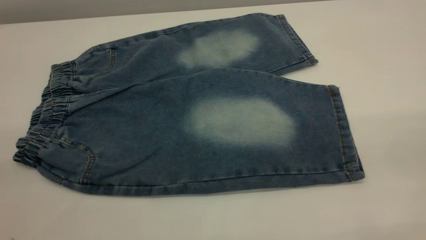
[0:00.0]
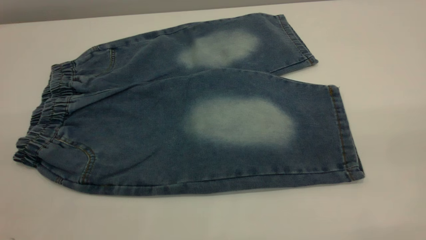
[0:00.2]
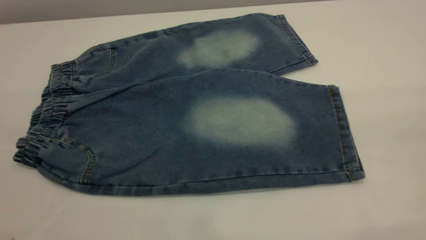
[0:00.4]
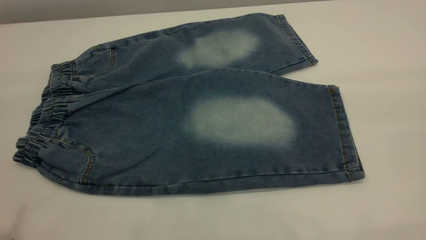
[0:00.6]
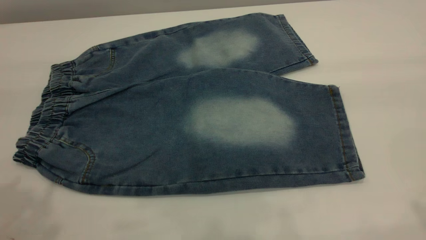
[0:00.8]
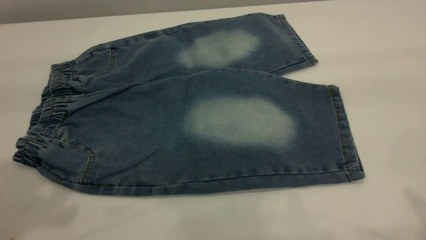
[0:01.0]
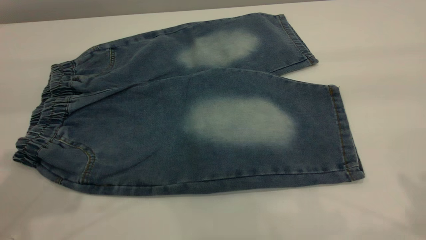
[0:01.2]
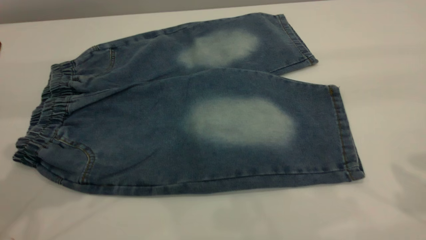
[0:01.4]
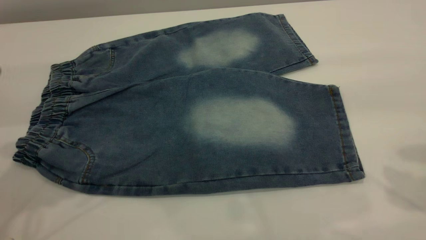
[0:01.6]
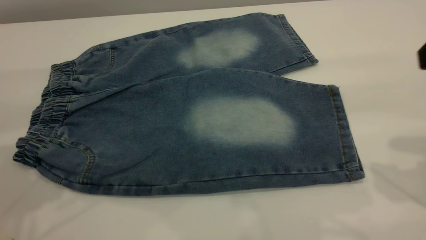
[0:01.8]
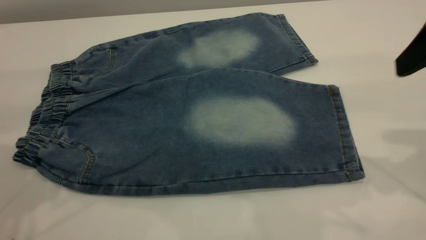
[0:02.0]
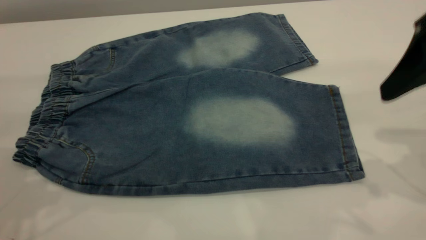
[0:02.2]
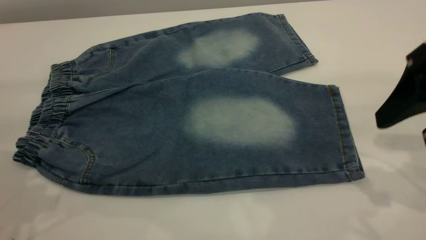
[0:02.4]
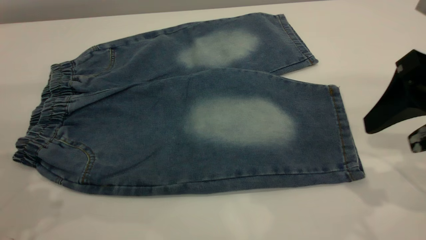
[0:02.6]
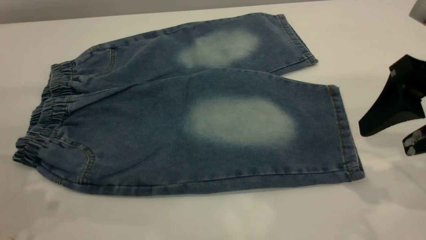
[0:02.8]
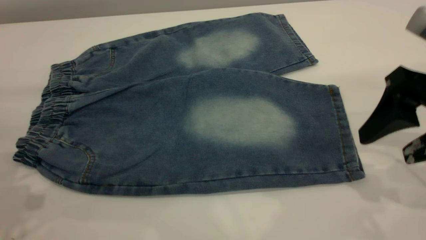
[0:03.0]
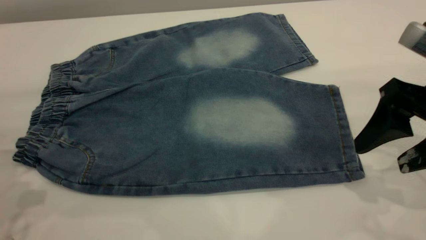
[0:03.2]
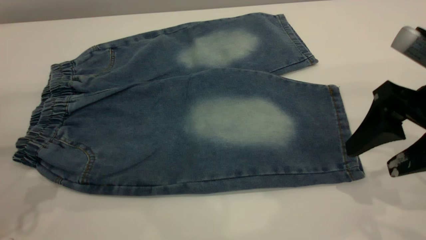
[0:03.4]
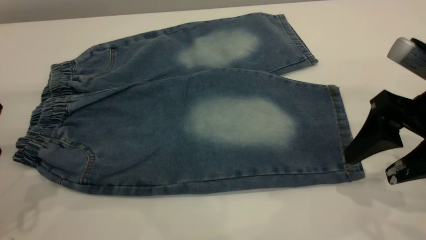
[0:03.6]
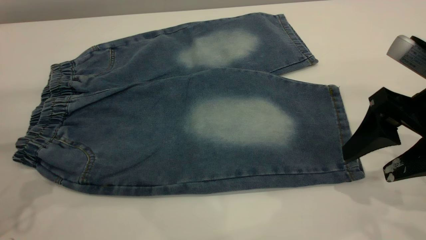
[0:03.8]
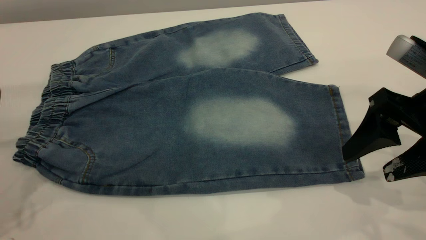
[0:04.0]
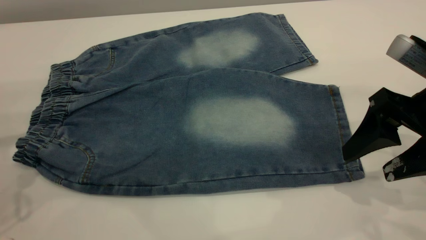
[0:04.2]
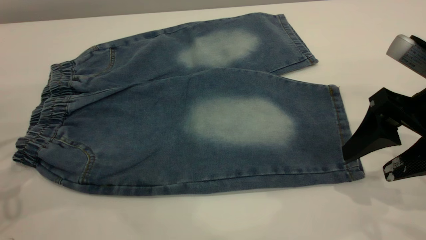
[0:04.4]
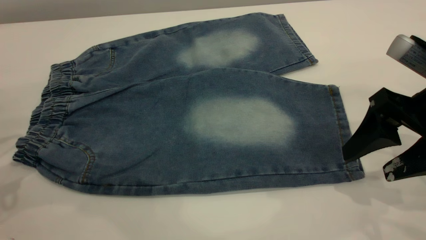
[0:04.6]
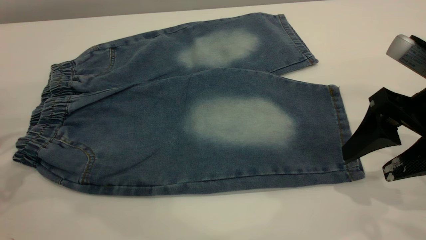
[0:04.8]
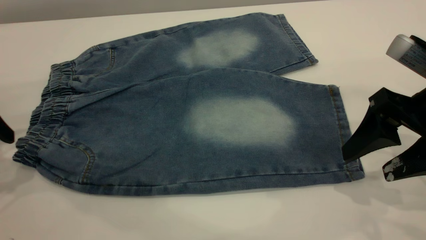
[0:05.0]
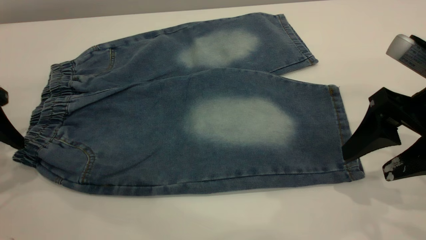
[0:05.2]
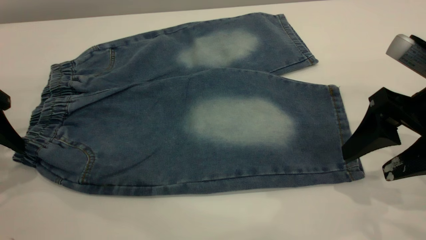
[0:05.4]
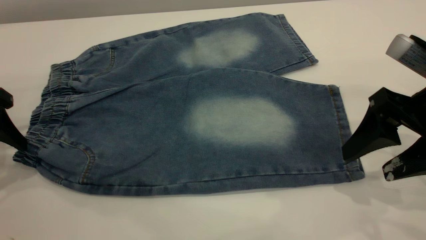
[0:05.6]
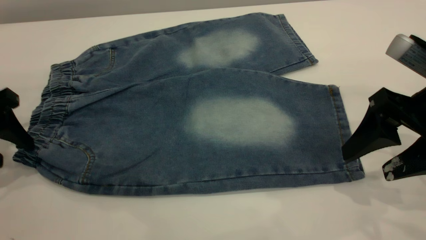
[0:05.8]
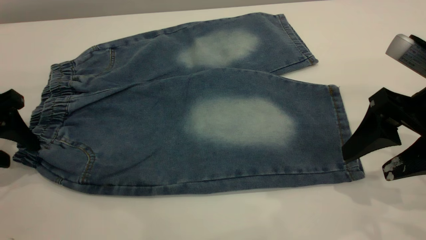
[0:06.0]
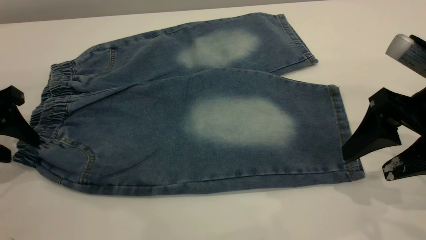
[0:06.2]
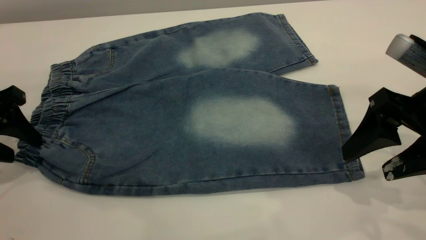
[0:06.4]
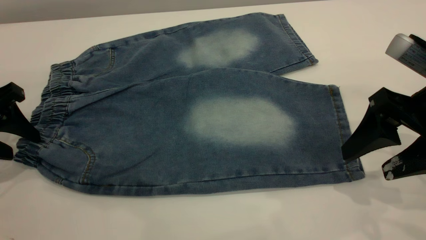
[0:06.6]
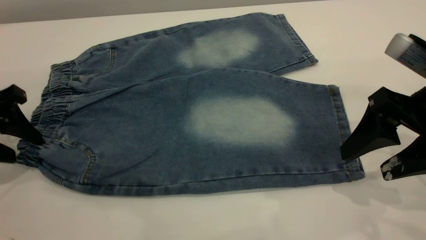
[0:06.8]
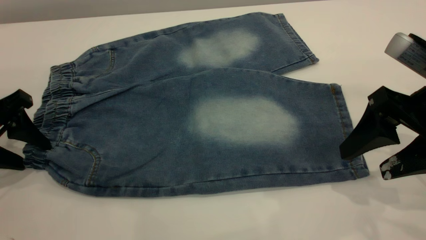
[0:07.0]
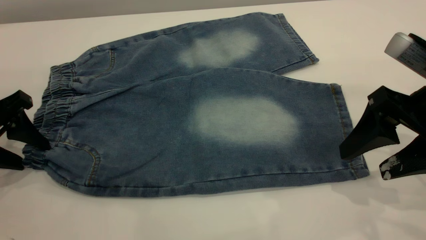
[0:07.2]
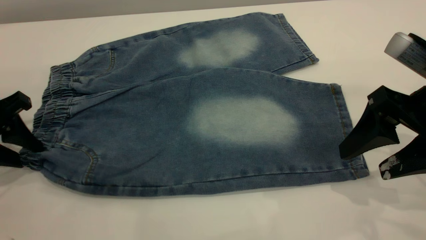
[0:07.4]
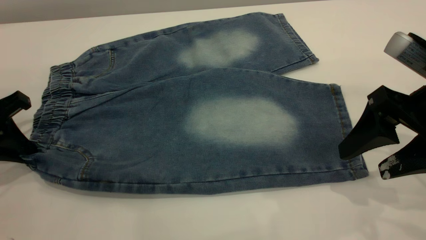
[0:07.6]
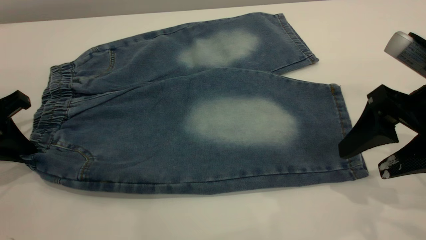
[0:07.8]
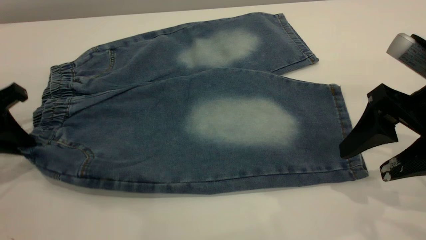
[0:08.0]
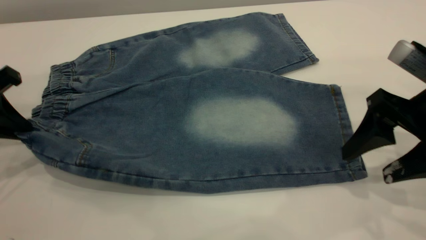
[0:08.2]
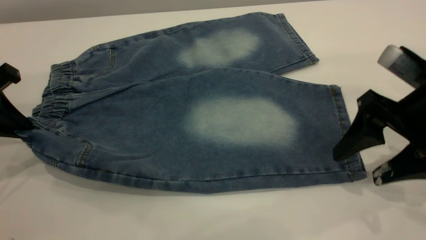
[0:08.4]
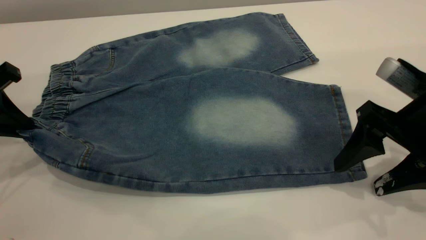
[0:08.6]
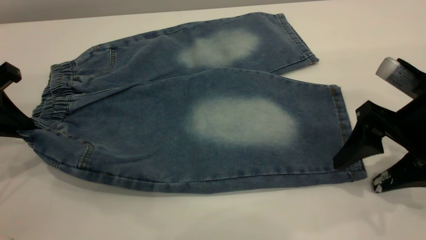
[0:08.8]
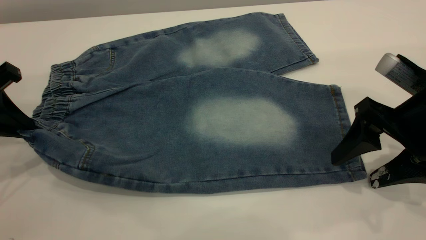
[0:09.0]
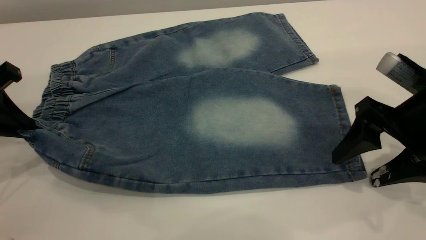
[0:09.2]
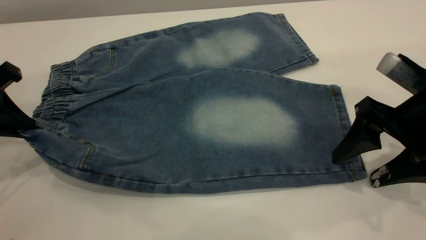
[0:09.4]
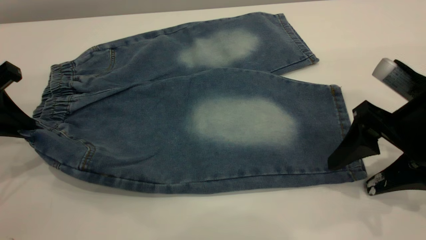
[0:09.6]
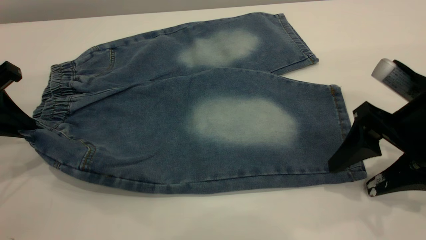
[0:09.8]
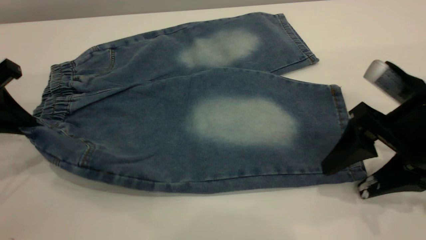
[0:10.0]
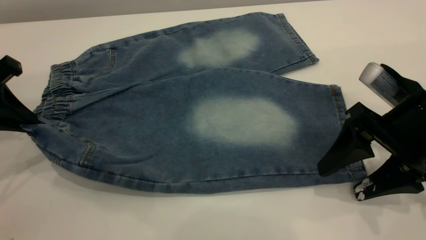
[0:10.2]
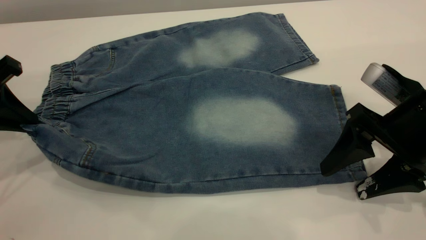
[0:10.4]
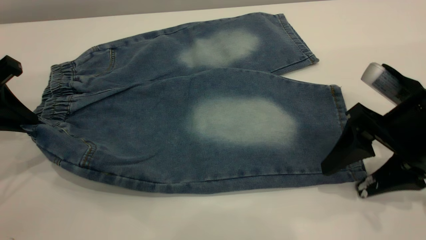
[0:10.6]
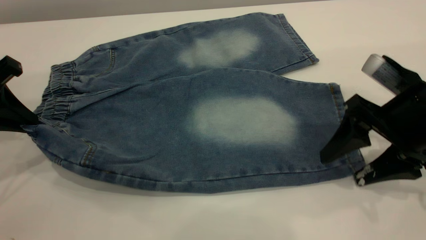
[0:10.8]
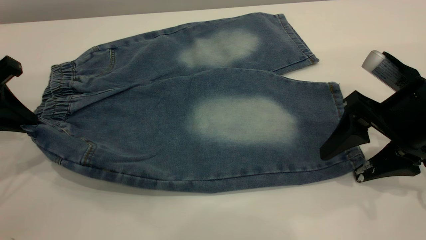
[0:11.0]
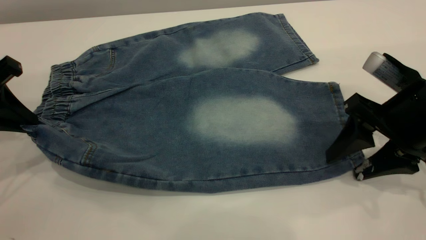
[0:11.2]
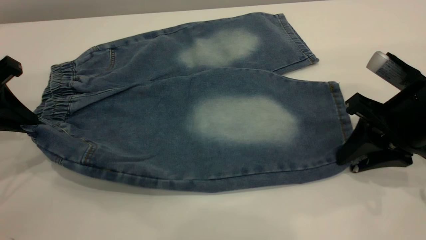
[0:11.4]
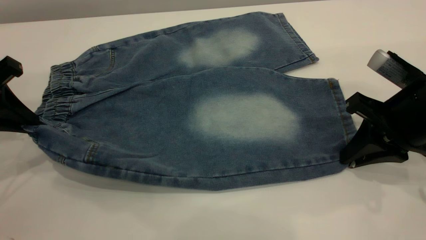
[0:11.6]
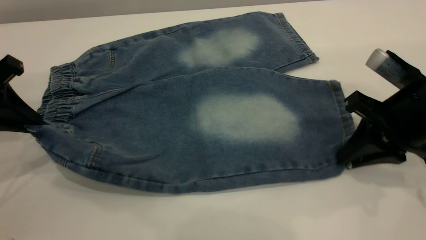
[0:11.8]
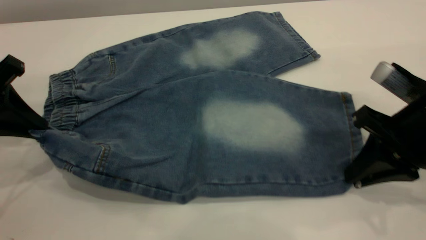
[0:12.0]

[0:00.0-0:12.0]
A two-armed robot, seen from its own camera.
0:01.6 to 0:03.0: The left gripper travels downward by about 5 cm, while the right gripper goes approximately 10 cm downward.
0:04.4 to 0:06.0: The left gripper shifts about 5 cm downward.
0:06.0 to 0:07.6: The left gripper closes up.
0:07.6 to 0:10.4: The grippers move only a little.
0:10.4 to 0:12.0: The right gripper closes up.

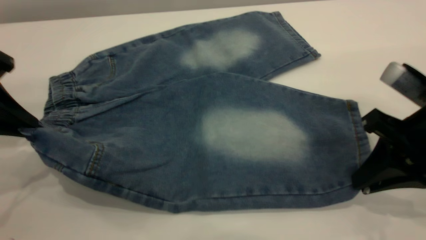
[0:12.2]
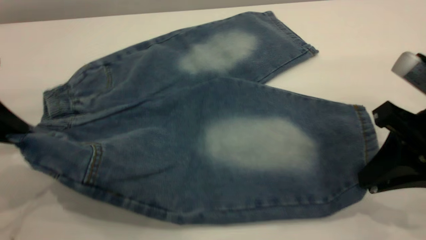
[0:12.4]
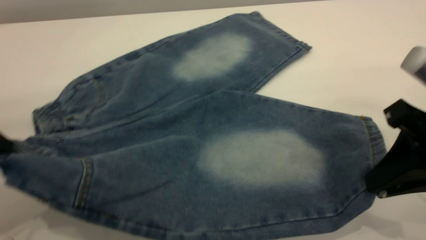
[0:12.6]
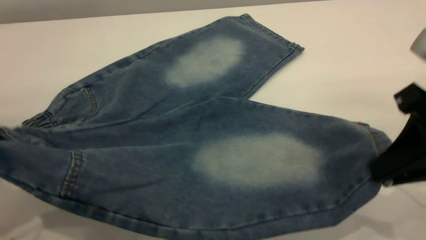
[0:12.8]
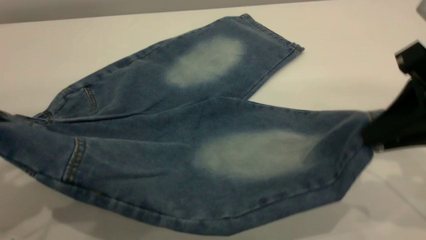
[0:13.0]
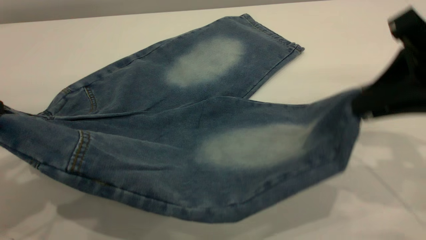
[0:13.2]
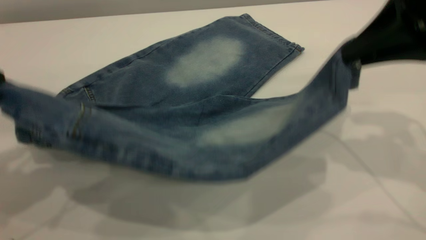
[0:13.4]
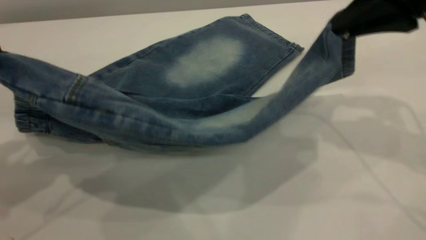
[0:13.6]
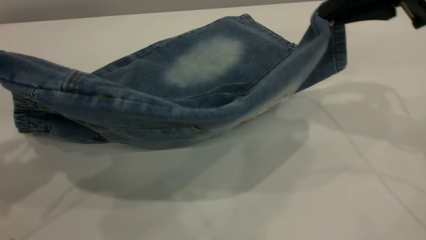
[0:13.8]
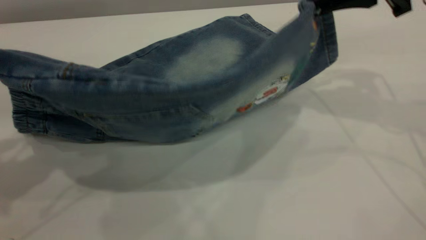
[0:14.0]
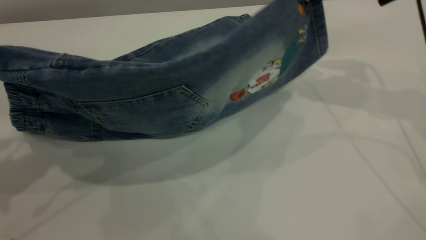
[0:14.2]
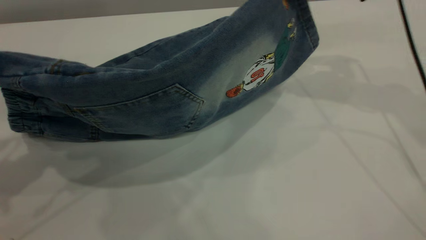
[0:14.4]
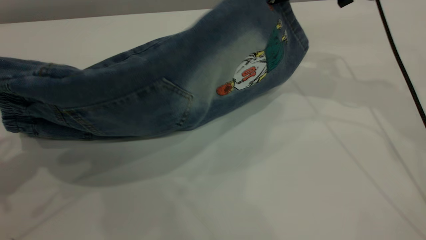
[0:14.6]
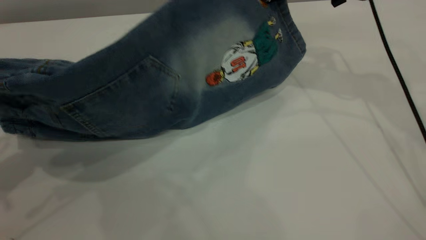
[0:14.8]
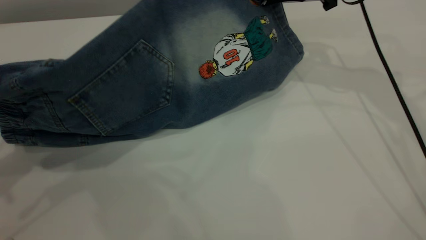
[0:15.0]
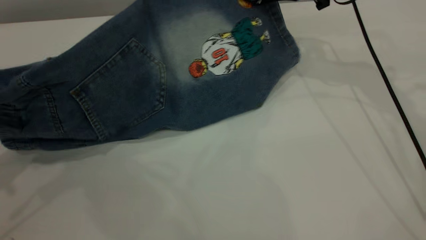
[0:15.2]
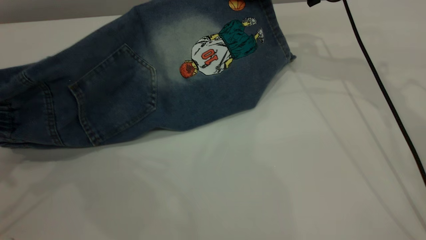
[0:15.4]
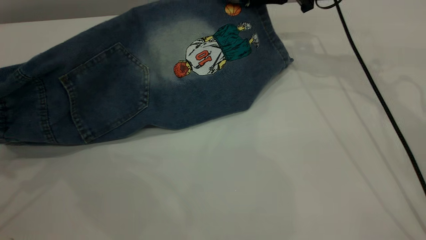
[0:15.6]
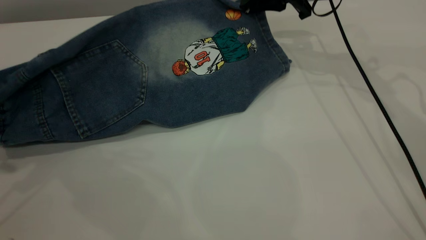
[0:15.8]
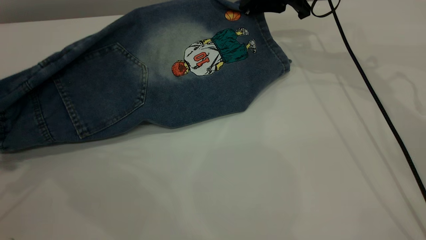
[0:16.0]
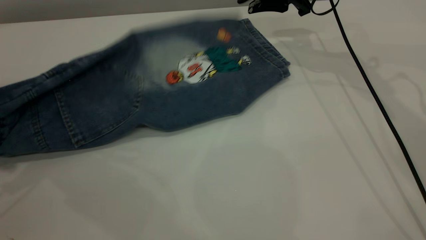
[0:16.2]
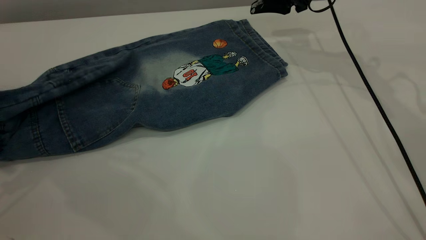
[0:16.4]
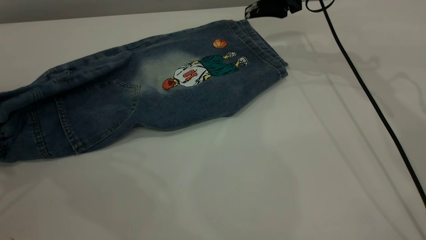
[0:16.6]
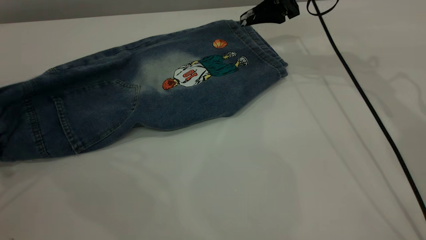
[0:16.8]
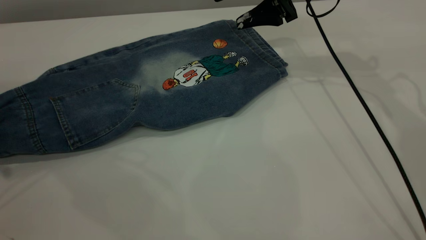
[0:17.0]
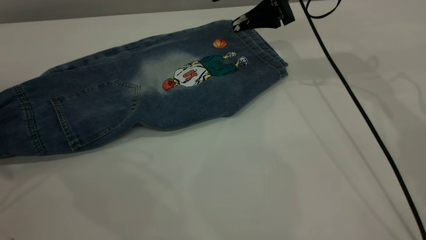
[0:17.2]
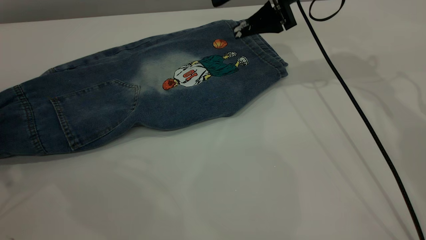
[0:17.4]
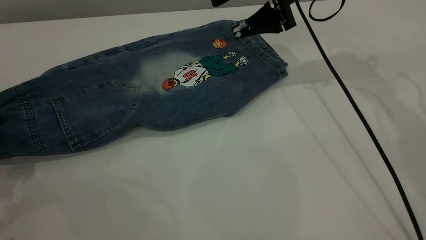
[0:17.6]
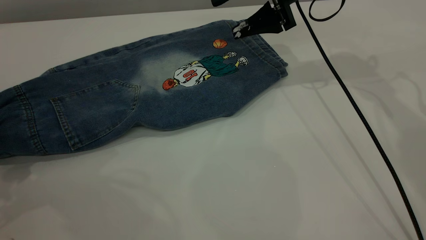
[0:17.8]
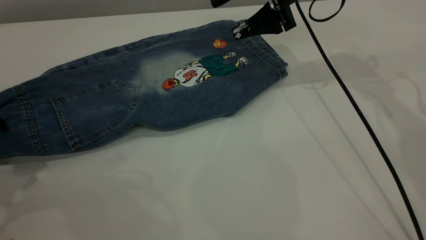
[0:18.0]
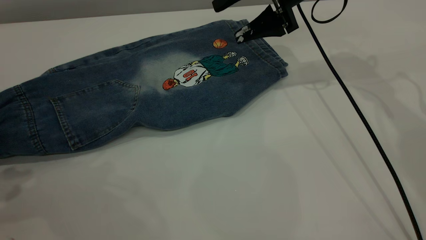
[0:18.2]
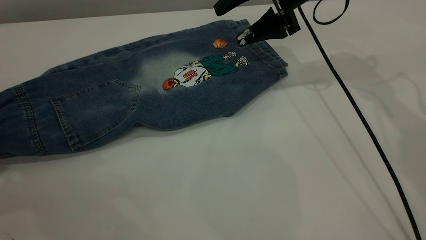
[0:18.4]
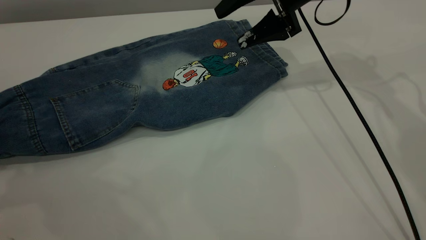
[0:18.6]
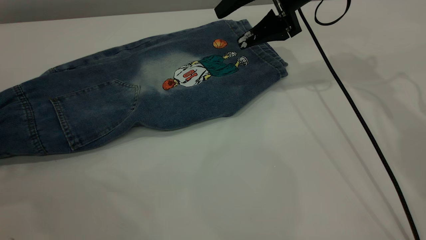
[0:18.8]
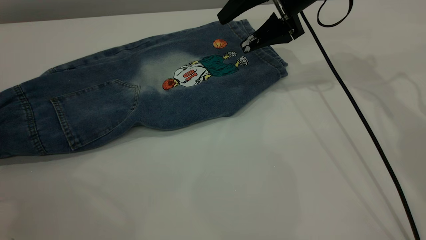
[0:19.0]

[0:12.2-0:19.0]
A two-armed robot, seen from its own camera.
Step, 0:12.2 to 0:16.4: Fold the bottom of the pants upward.
0:12.2 to 0:13.6: The left gripper moves upward, approximately 10 cm. Meanwhile the right gripper moves upward and forward, approximately 15 cm.
0:13.6 to 0:15.0: The right gripper shifts about 15 cm forward.
0:15.0 to 0:16.2: The right gripper travels forward by roughly 5 cm, and opens, while the left gripper heads downward, covering about 5 cm.
0:16.2 to 0:17.6: The right gripper opens up; the left gripper opens up.
0:17.6 to 0:19.0: The left gripper moves to the left and upward, some 10 cm.
